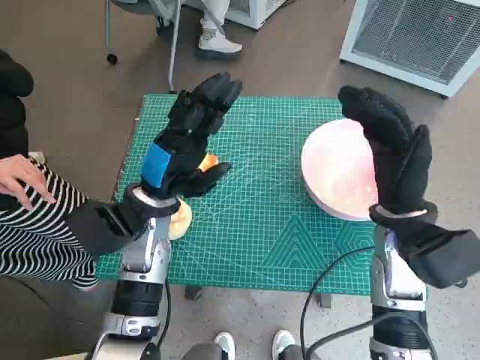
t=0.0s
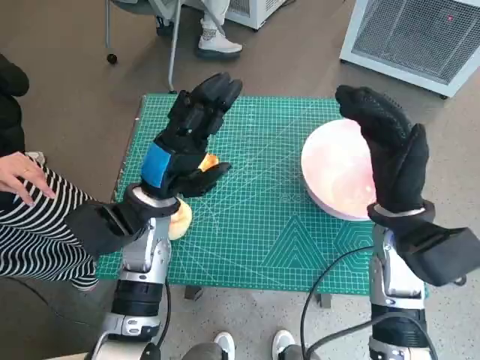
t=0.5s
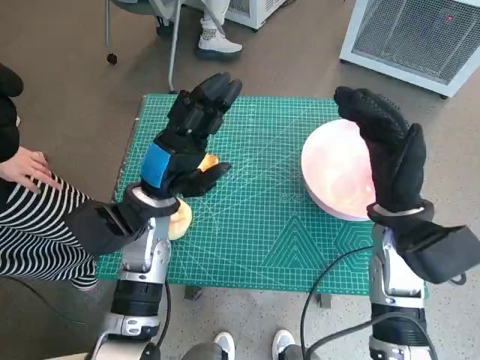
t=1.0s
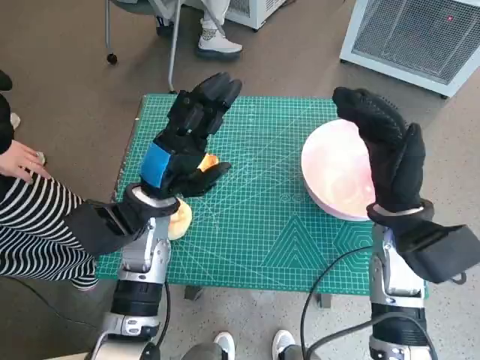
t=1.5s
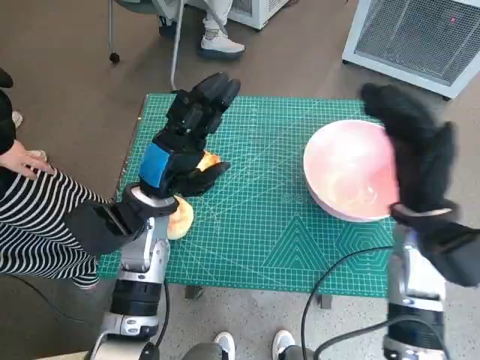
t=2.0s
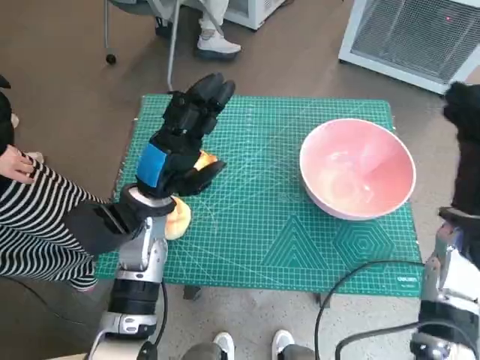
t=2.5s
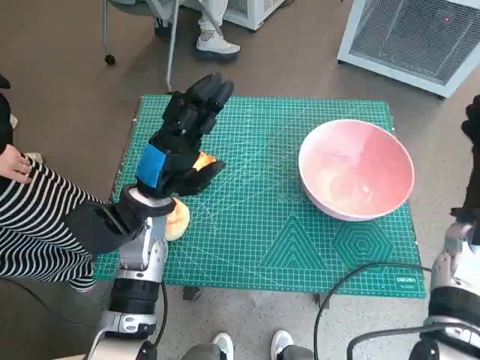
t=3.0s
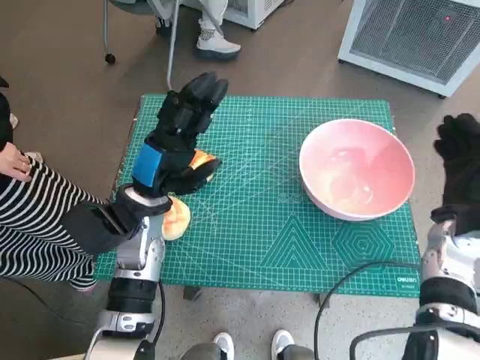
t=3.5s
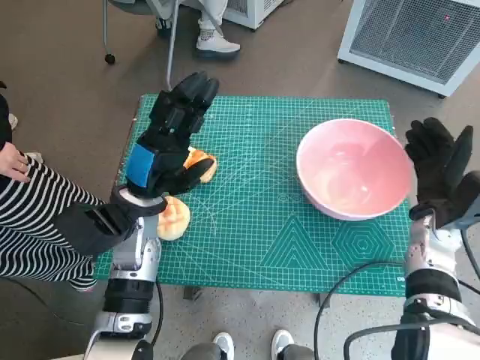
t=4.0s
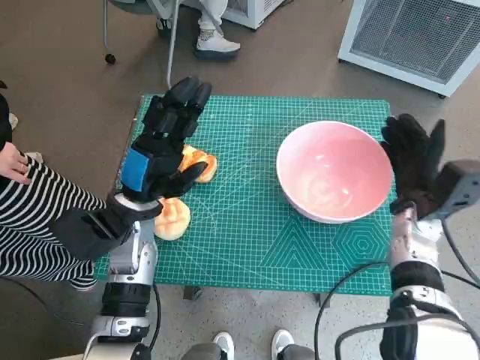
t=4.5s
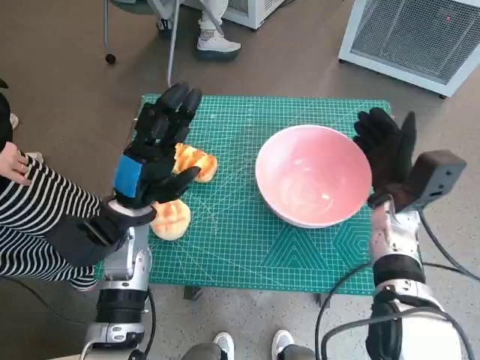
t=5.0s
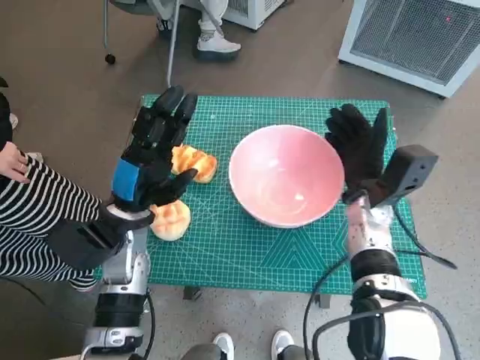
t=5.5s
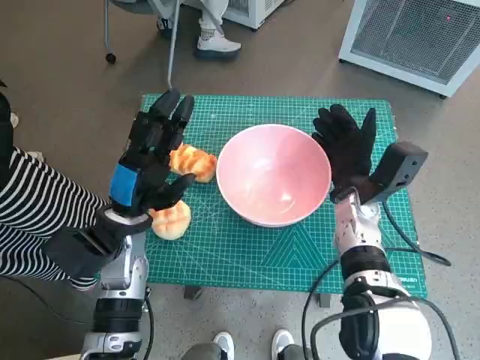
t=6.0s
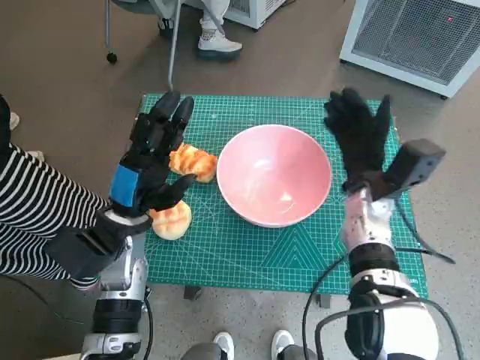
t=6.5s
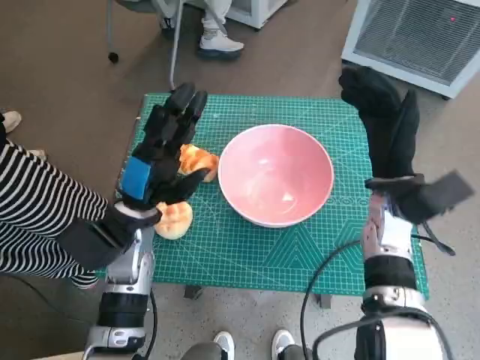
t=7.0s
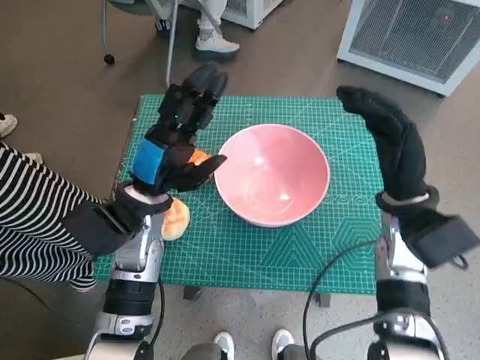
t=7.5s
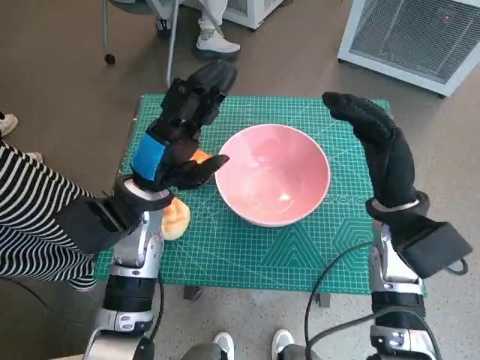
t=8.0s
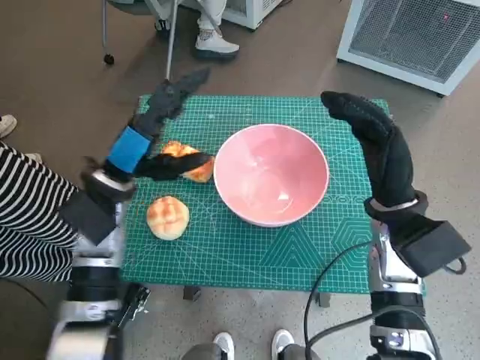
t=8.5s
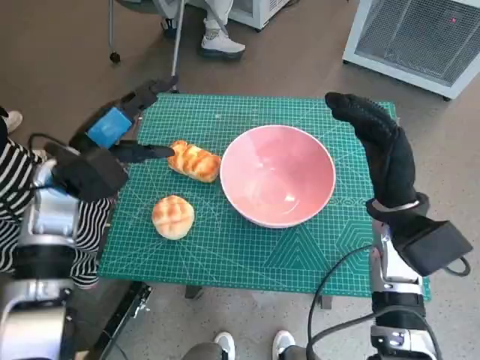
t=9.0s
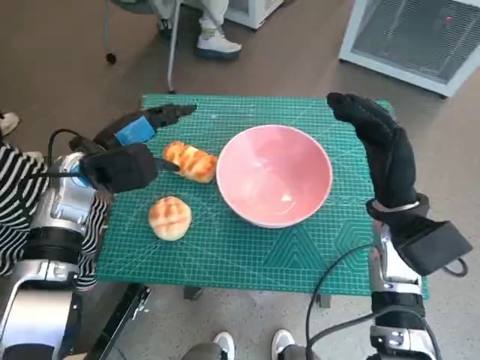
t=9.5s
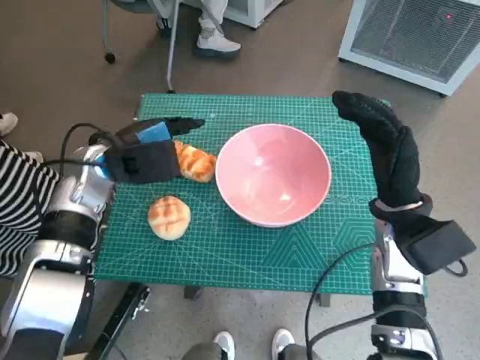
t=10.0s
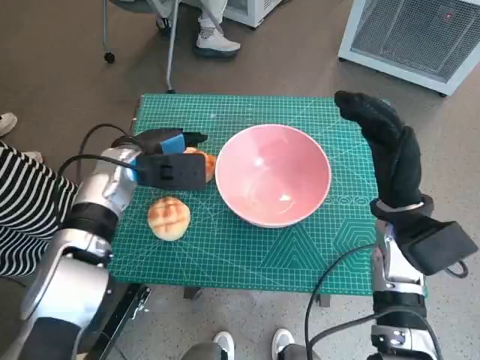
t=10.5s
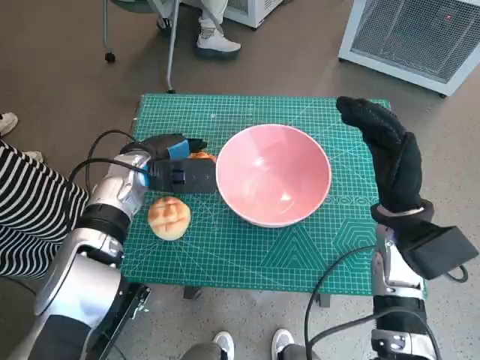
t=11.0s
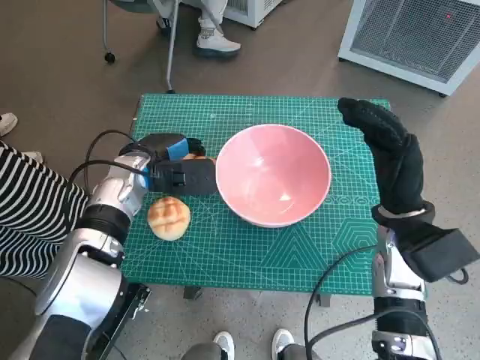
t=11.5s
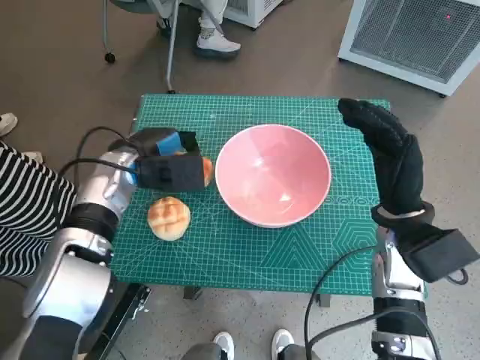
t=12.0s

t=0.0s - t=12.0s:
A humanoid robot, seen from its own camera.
Task of the whole recording: Push the bowl into the center of the table and put the bread into the bowl.
Step, t=0.0s - t=6.0s: Move the pink bowl to the center of table with right hand.
Step, t=6.5s - t=11.5s: Grasp the long bread with left hand.
t=2.0s - t=4.0s: The right hand goes about 10 cm downward and to the right.
t=4.0s - t=6.0s: The right hand heads to the left, covering about 10 cm.
t=6.0s - t=8.0s: The right hand moves upward and backward, some 10 cm. Meanwhile the left hand shifts by about 5 cm.
t=8.0s - t=10.0s: The left hand heads to the left and forward, covering roughly 10 cm.
t=10.0s - t=12.0s: There are only small adjustments of the hands.

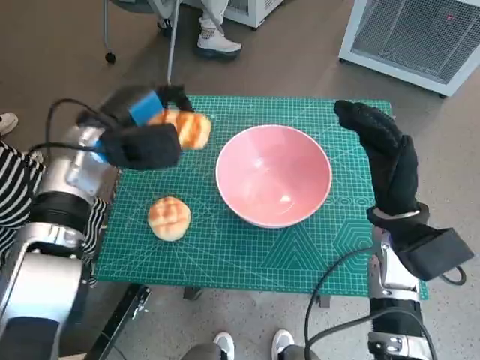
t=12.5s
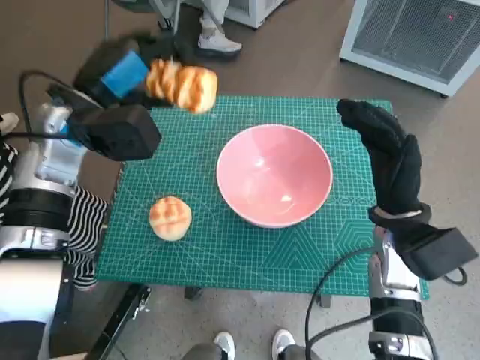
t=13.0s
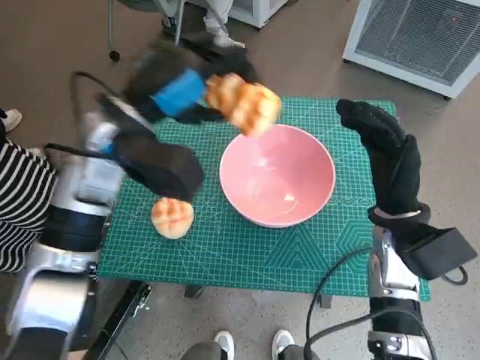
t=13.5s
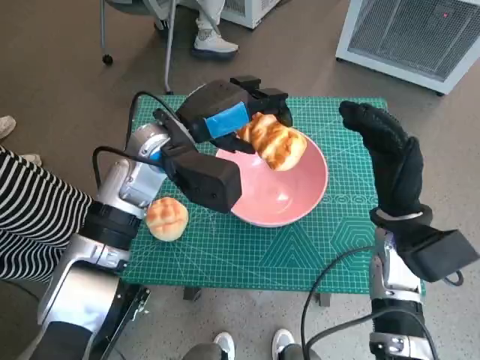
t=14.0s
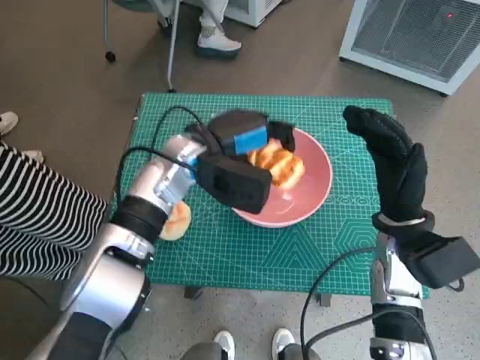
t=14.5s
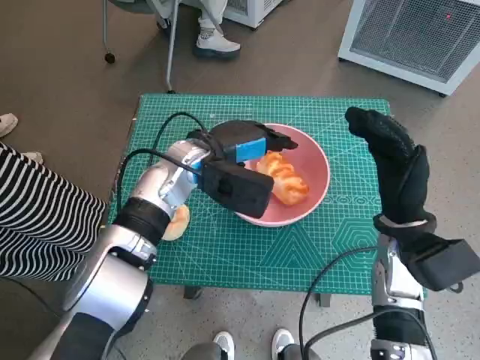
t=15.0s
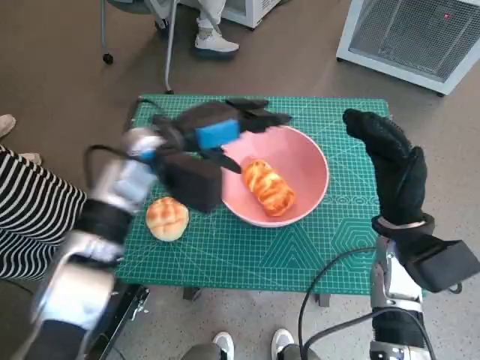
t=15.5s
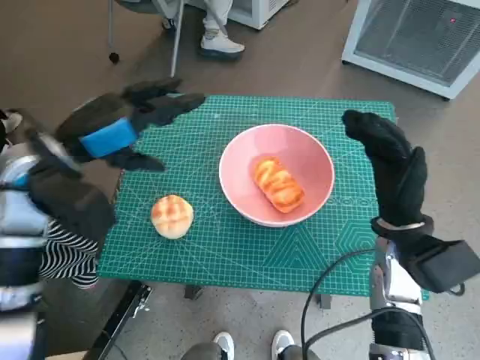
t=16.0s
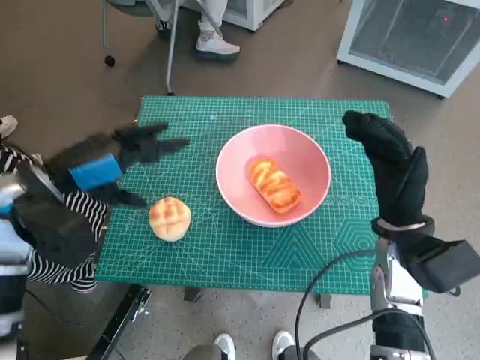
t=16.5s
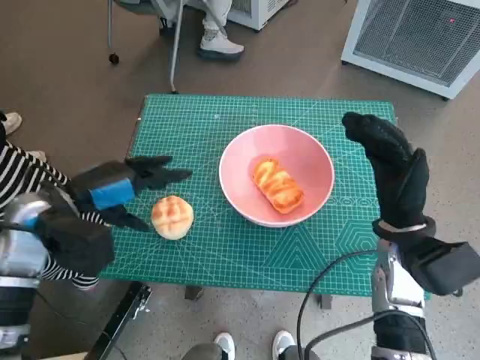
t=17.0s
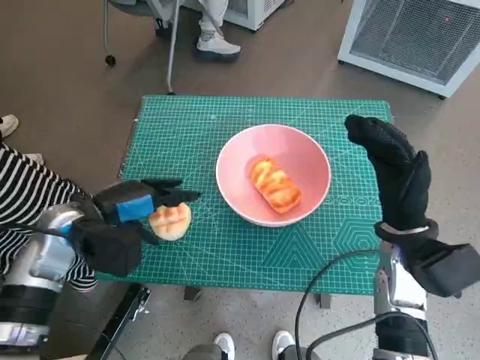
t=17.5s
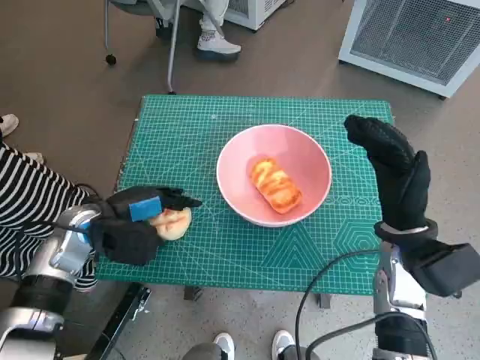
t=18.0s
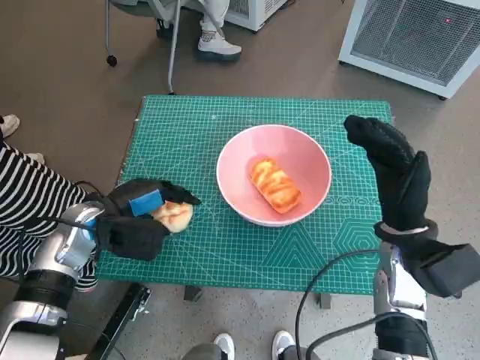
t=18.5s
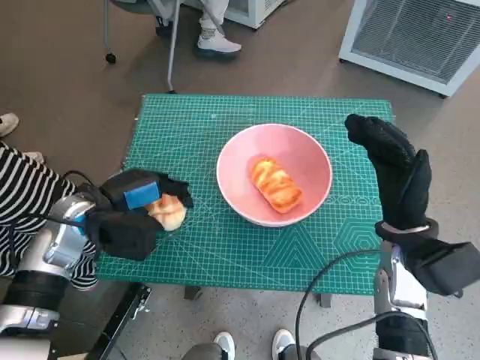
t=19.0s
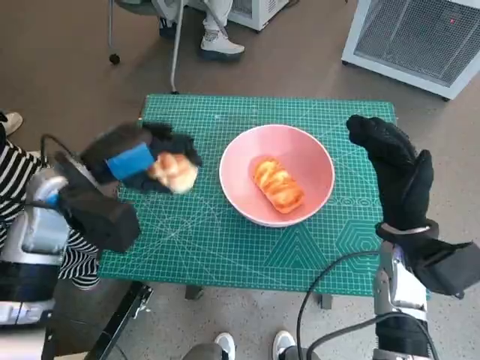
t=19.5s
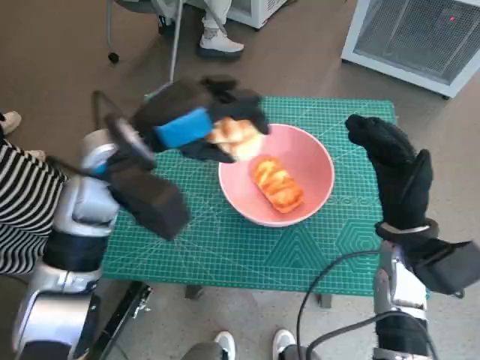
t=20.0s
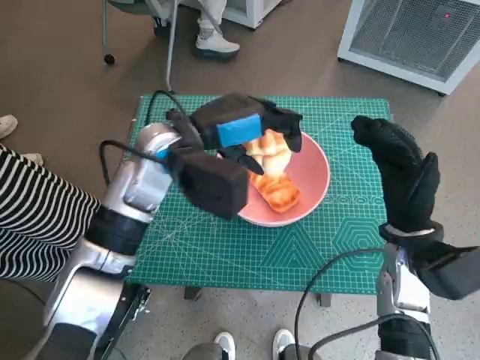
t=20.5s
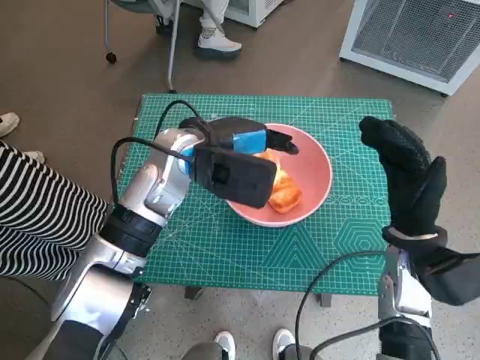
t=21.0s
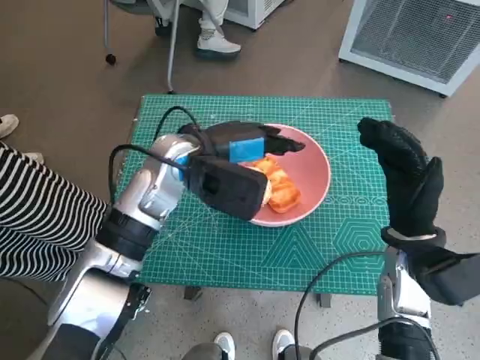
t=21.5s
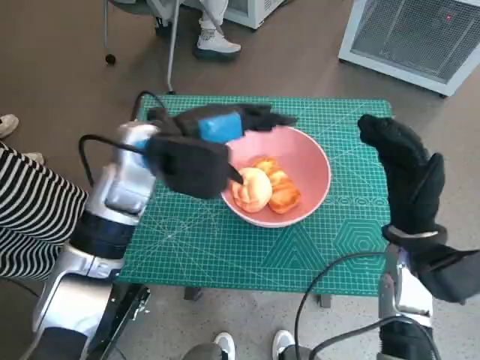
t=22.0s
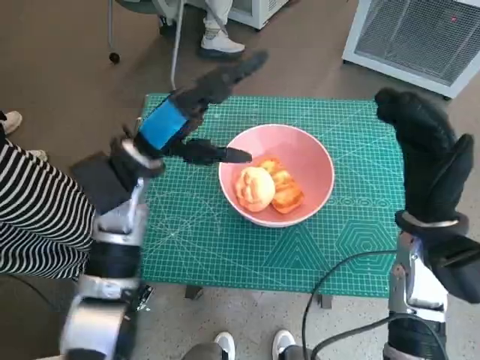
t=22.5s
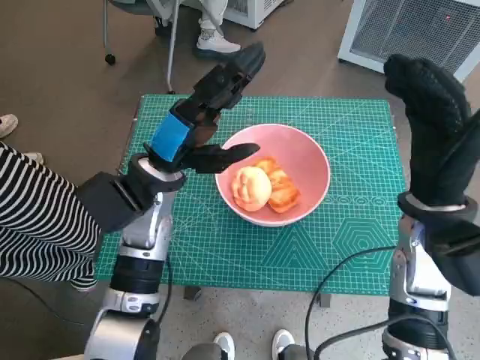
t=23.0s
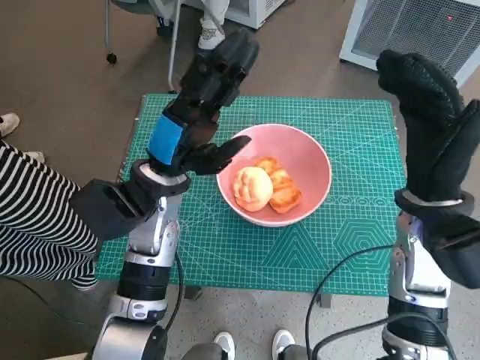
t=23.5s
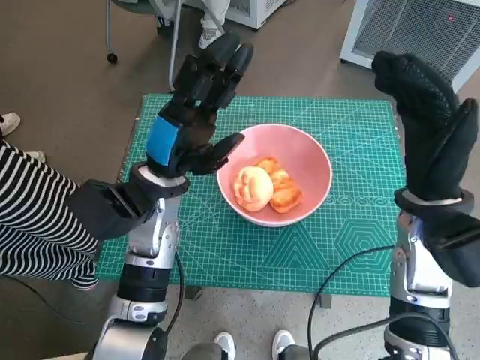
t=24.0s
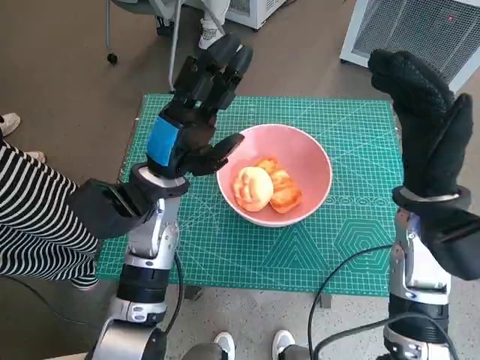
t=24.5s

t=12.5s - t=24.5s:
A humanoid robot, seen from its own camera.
Task of the whole recording: Push the bowl into the center of the table and put the bread into the bowl.
Step, t=12.5s - t=15.5s: Place the long bread in pink bowl with left hand.
Step, t=16.0s - t=18.5s: Grasp the round bread with left hand.
Step, t=19.0s - t=22.5s: Place the round bread in pink bowl with left hand.
t=12.5s - t=14.5s: The left hand heads to the right, covering roughly 10 cm.
t=14.5s - t=16.5s: The left hand is displaced to the left and backward by some 20 cm.
t=16.5s - t=18.5s: The left hand is displaced downward by roughly 10 cm.
t=18.5s - t=20.5s: The left hand heads to the right and upward, covering about 20 cm.
t=20.5s - t=22.5s: The left hand goes about 5 cm to the left.
t=22.5s - t=24.5s: The left hand changes place by approximately 5 cm.

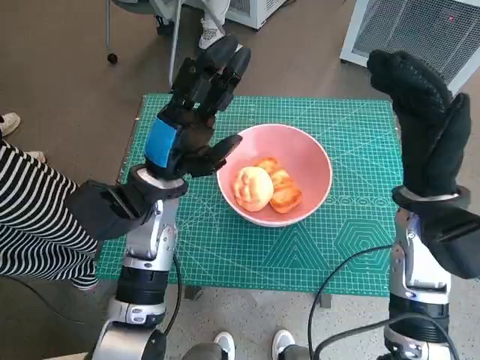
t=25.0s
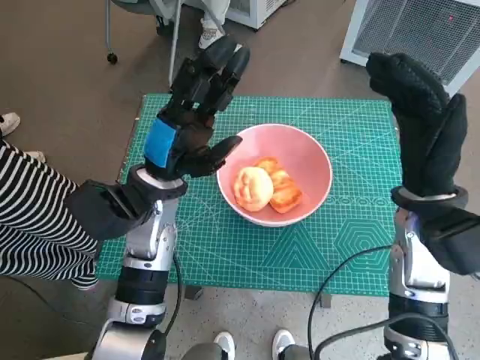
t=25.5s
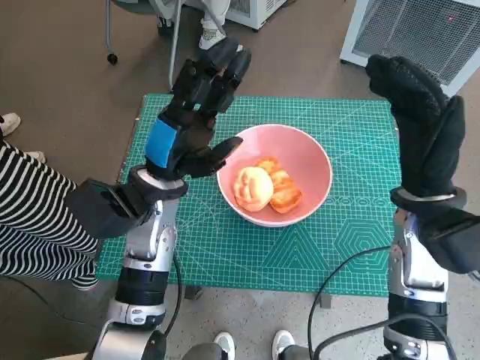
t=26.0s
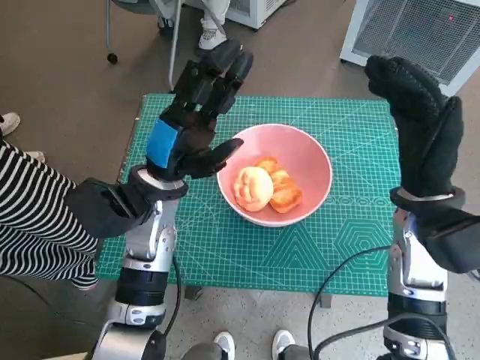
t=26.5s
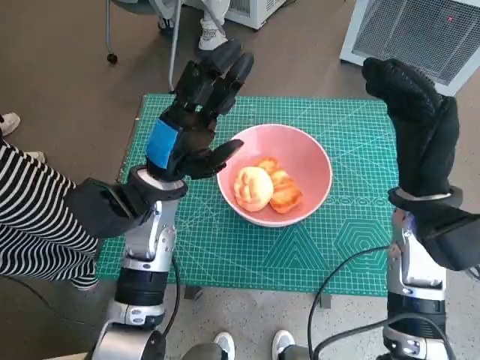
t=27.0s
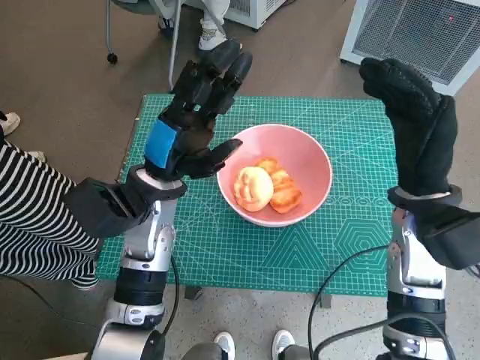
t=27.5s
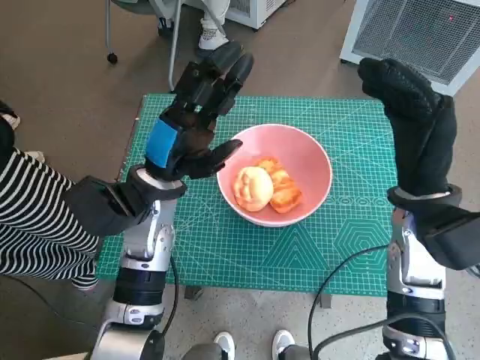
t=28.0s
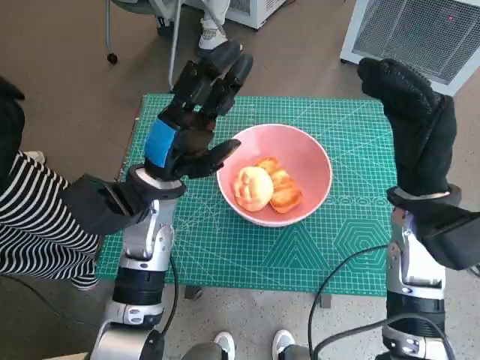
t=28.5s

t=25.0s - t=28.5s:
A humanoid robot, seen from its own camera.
Task of the whole recording: Push the bowl into the center of the table and put the bread into the bowl.
t=25.0s - t=28.5s: The two hands keep their place.
